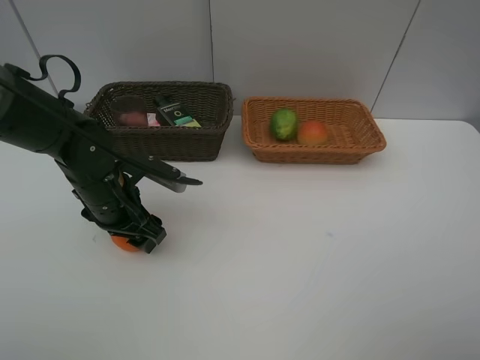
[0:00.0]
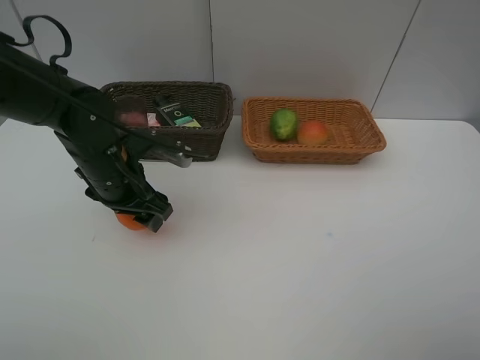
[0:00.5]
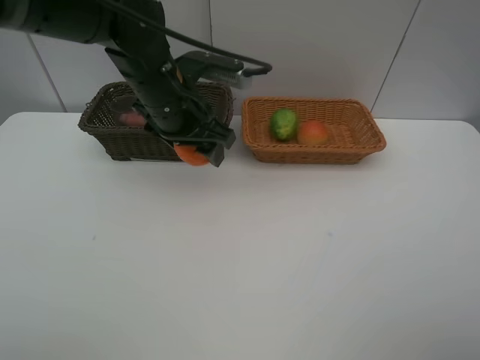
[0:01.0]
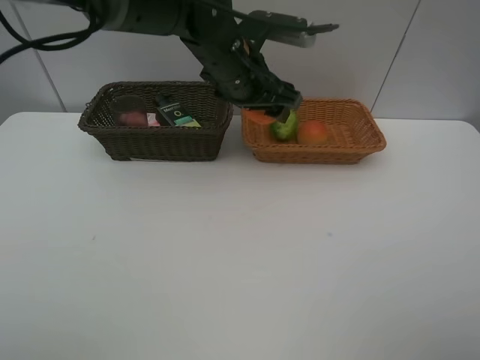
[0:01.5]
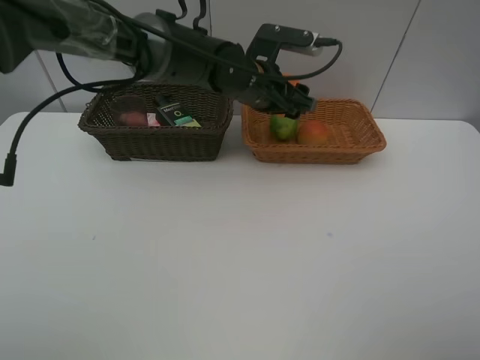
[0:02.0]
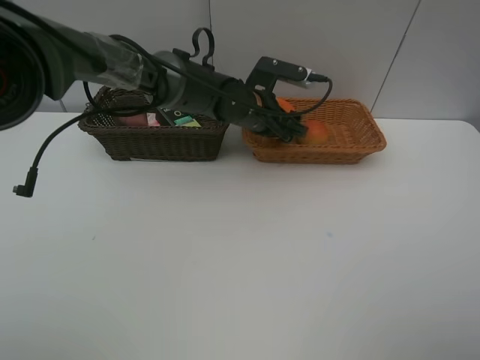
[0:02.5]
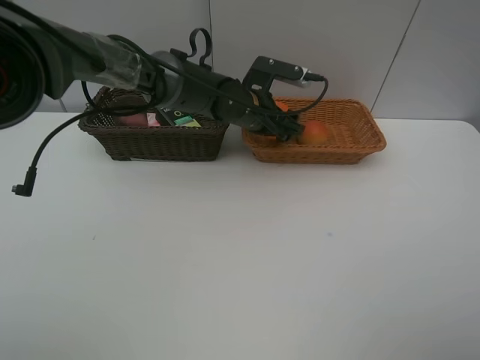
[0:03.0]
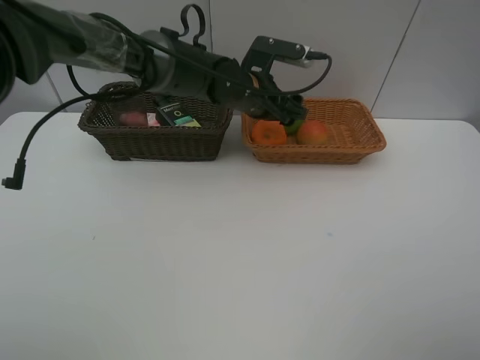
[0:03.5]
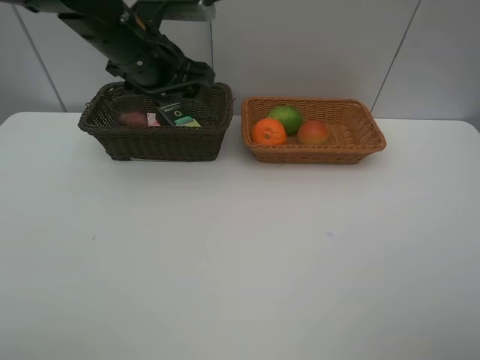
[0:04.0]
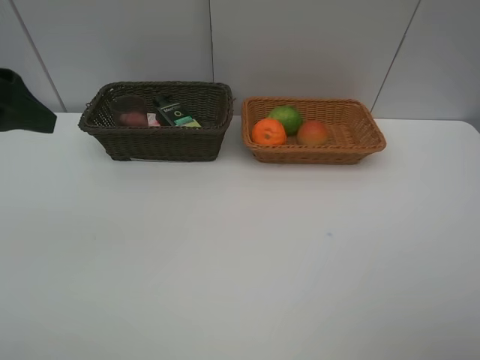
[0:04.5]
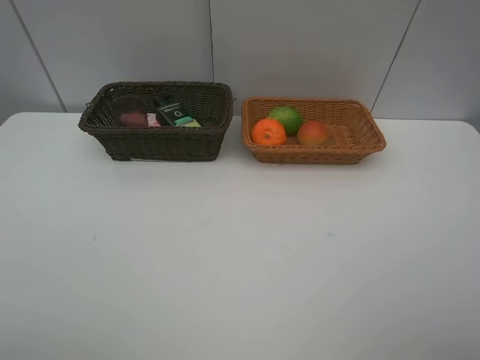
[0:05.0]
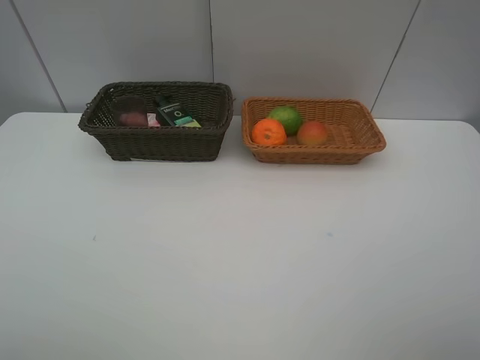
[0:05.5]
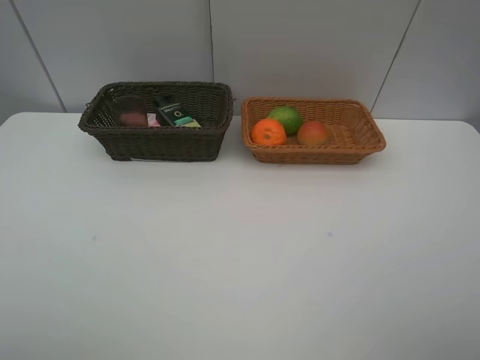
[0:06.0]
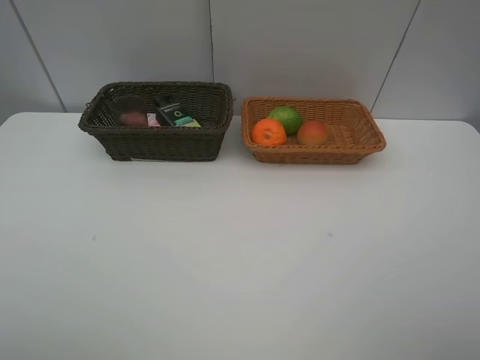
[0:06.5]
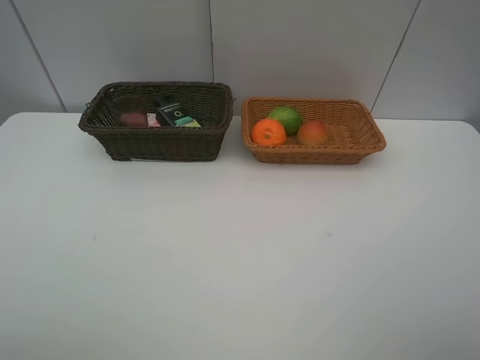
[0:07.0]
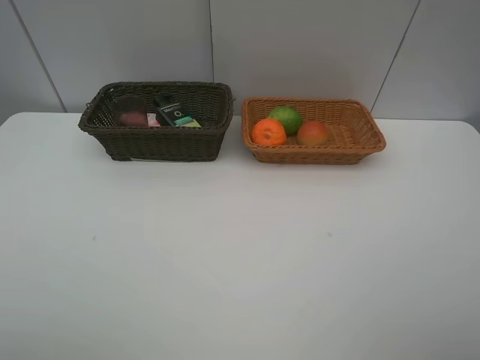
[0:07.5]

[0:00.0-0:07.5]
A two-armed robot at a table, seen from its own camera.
Task of the whole recording: place multiple objects separately in different baskets.
0.0 to 2.0 s: The left gripper moves to the right, forward and upward, some 25 cm.
2.0 to 4.0 s: The left gripper is displaced to the left and upward by some 20 cm.
4.0 to 5.5 s: The left gripper is displaced backward and to the left by about 40 cm.

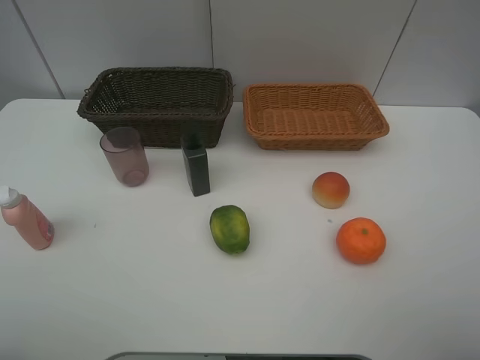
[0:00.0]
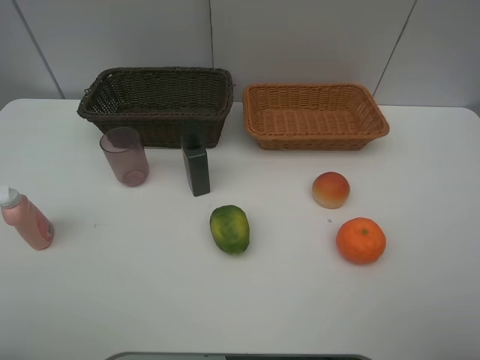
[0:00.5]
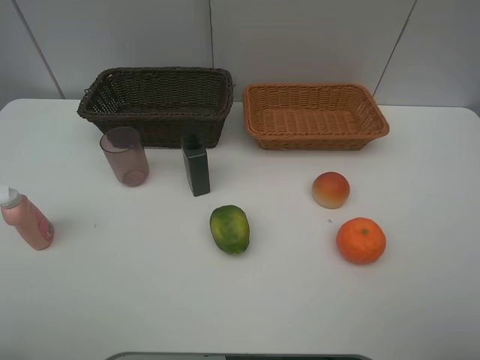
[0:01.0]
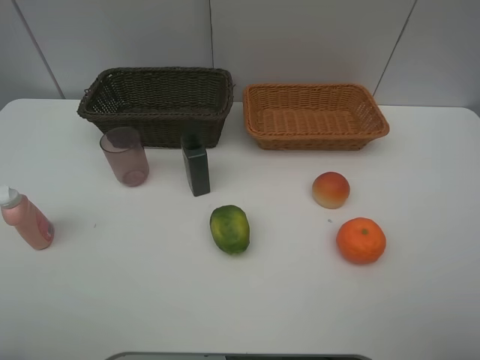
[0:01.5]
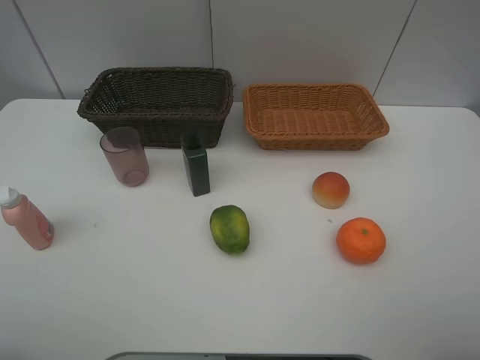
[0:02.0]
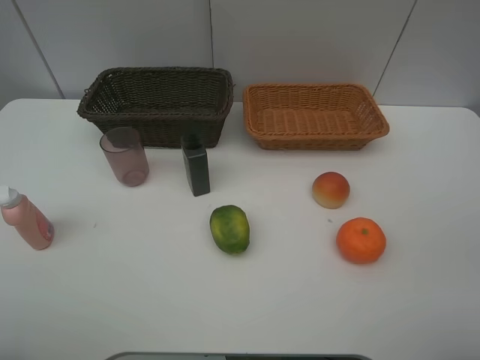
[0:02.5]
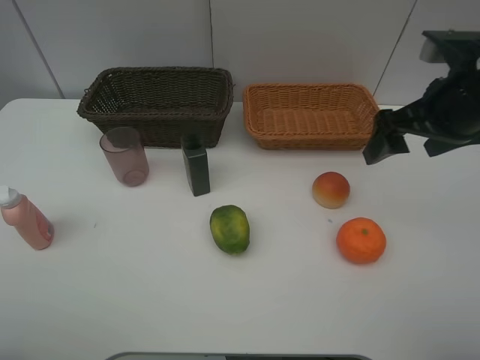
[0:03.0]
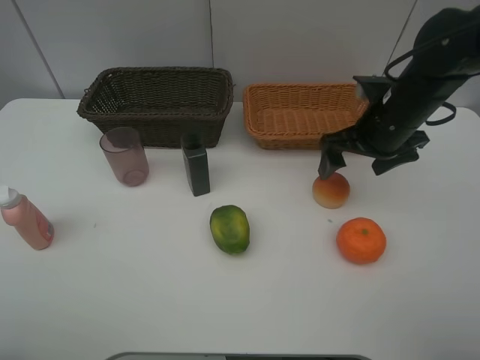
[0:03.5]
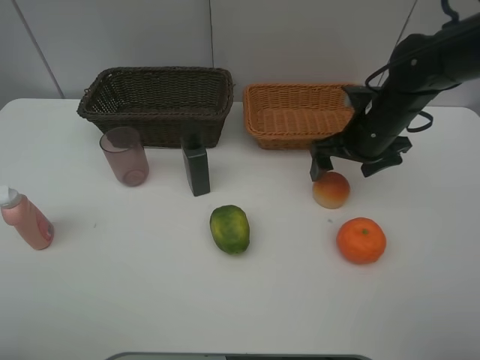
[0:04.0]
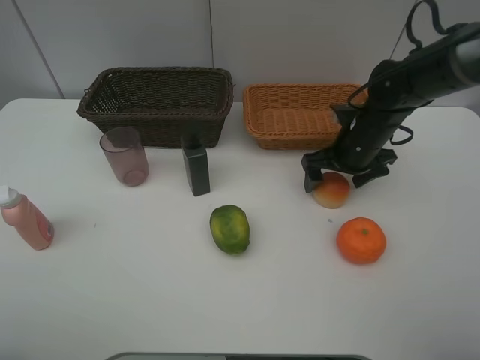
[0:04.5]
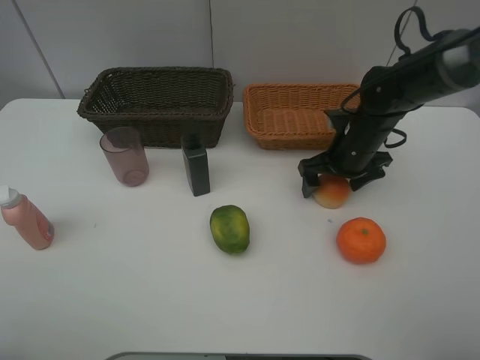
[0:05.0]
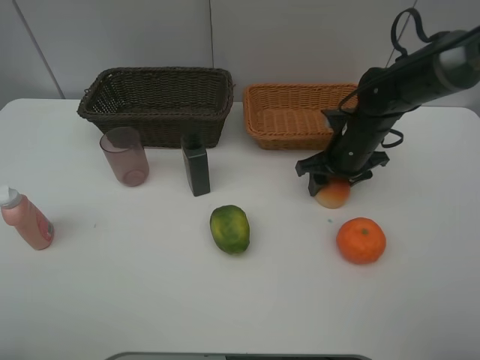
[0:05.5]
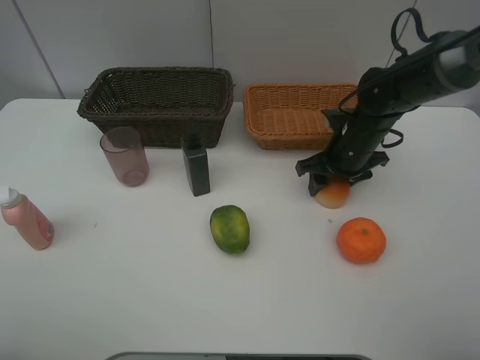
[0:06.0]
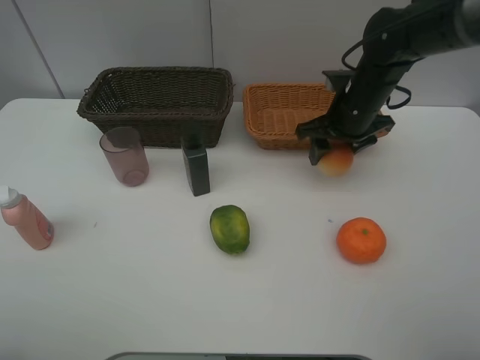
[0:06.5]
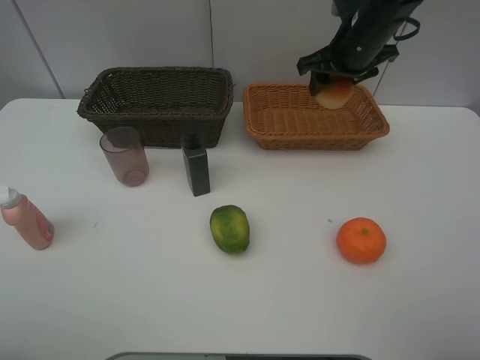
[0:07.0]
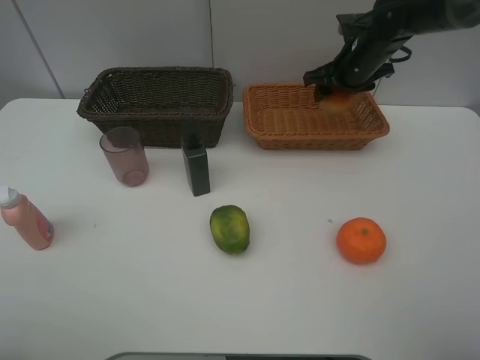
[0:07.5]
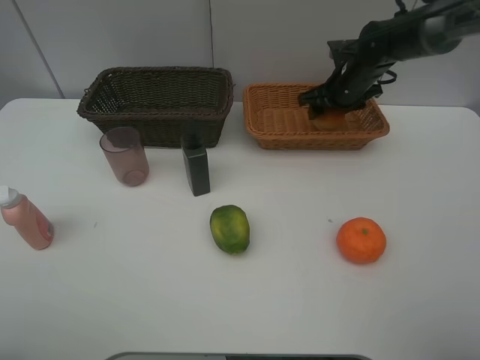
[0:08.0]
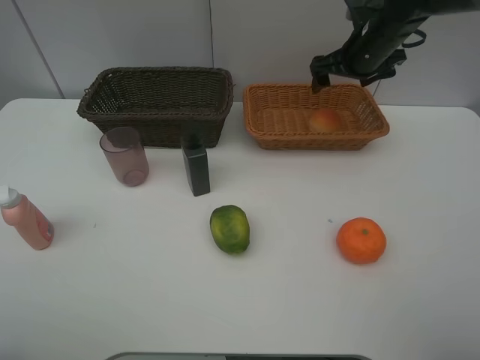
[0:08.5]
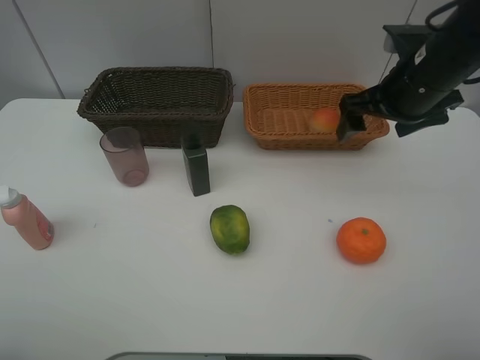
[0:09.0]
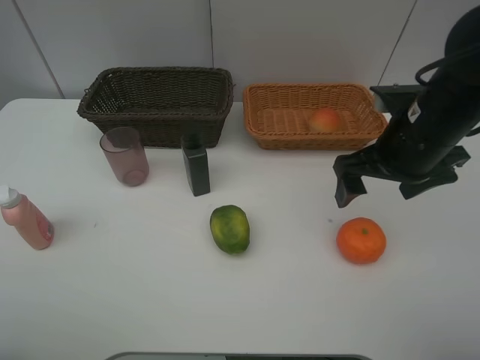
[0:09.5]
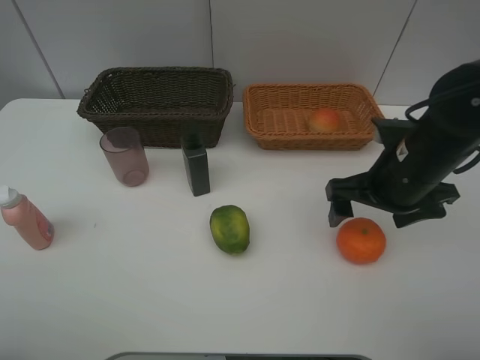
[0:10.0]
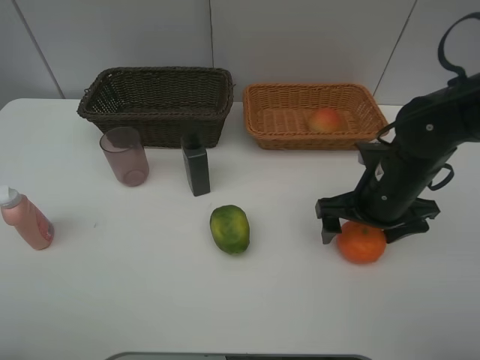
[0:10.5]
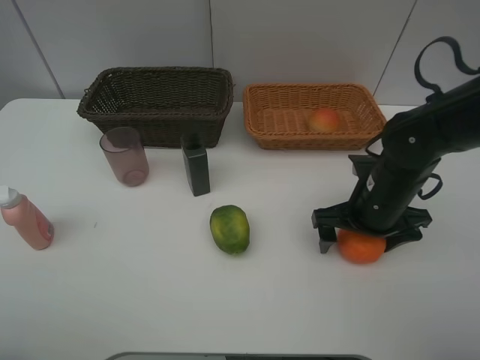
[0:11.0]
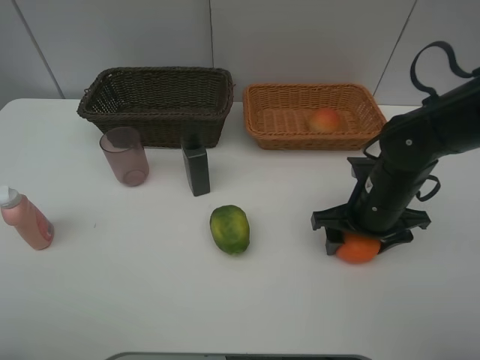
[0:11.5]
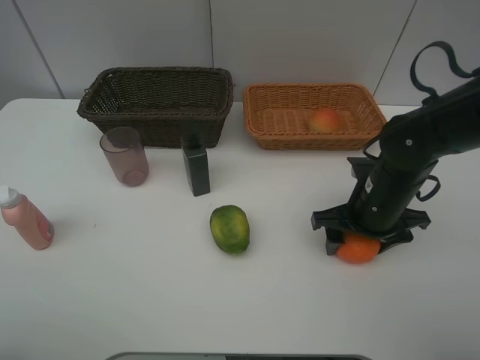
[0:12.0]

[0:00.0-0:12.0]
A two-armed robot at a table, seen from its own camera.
Task of the whole recording: place multiple objects separately in different baskets.
0.0 to 2.0 s: Neither gripper changes place.
2.0 to 4.0 s: The right gripper goes about 35 cm forward.
4.0 to 6.0 s: The right gripper shifts by about 5 cm, and closes its fingers.
6.0 to 8.0 s: The right gripper shifts roughly 10 cm forward, and goes upward and returns, some 15 cm each way.
8.0 to 10.0 s: The right gripper goes roughly 25 cm backward, and opens its fingers.
10.0 to 12.0 s: The right gripper heads downward, covering about 5 cm, and closes.

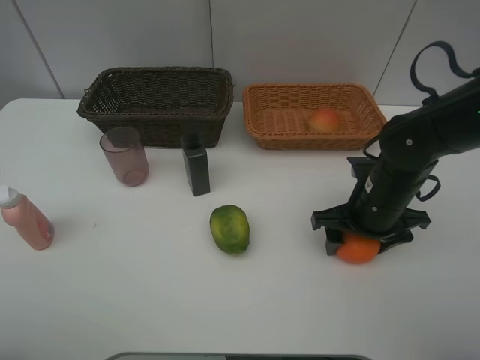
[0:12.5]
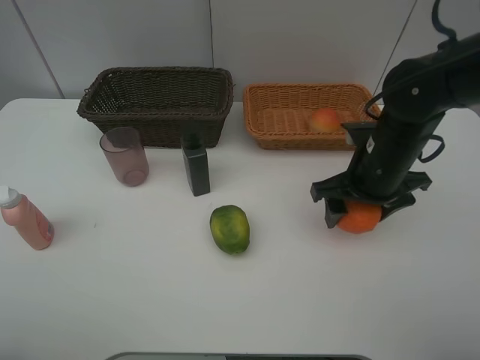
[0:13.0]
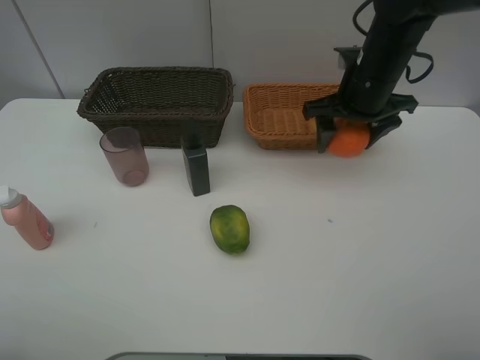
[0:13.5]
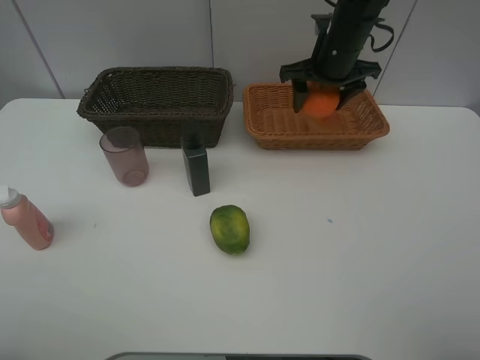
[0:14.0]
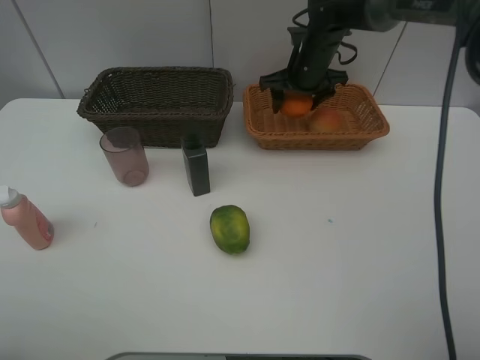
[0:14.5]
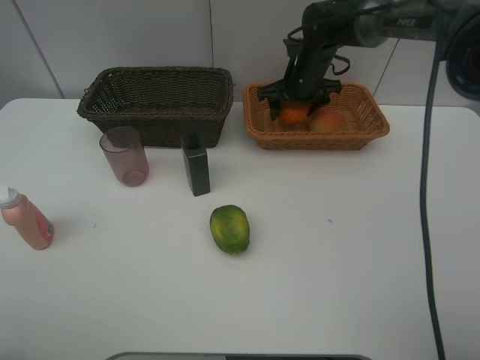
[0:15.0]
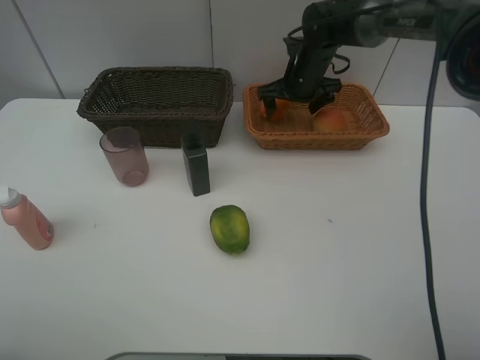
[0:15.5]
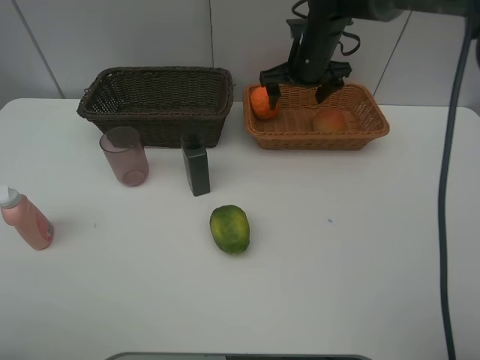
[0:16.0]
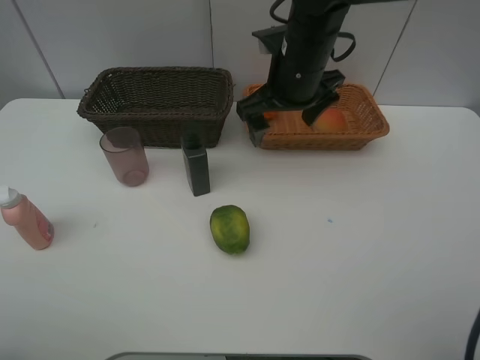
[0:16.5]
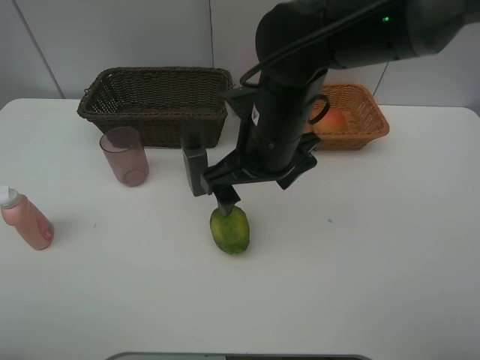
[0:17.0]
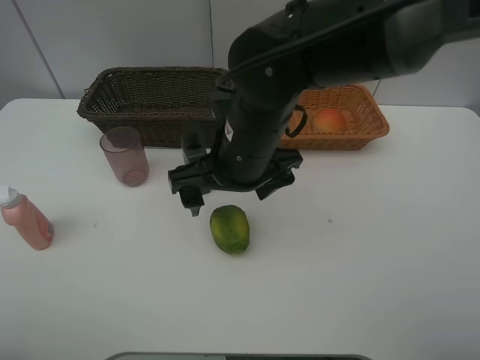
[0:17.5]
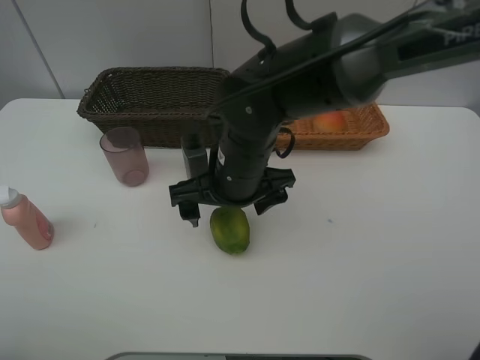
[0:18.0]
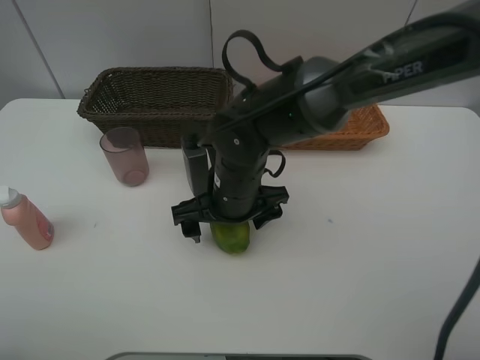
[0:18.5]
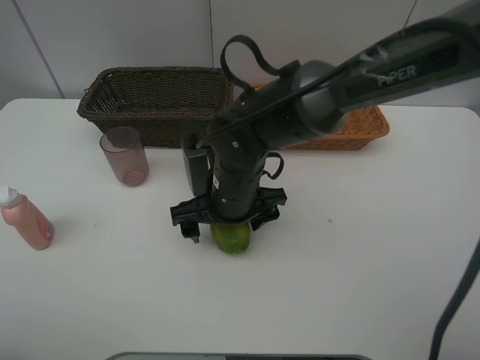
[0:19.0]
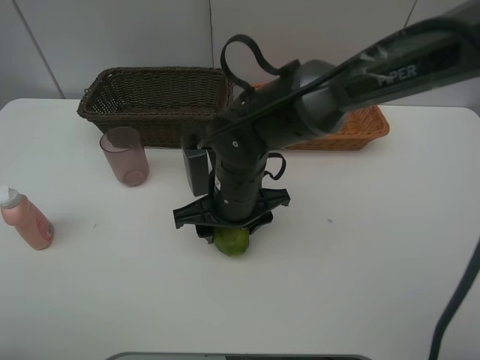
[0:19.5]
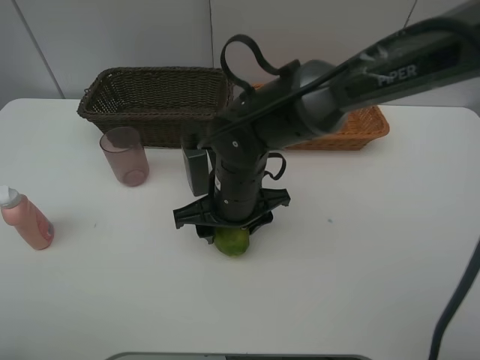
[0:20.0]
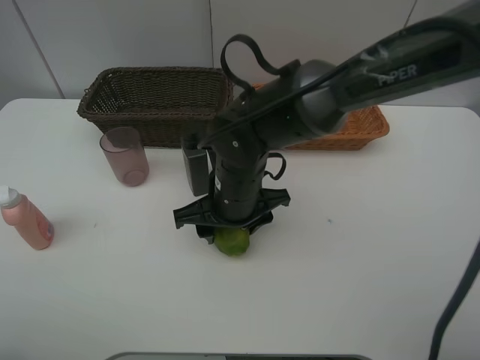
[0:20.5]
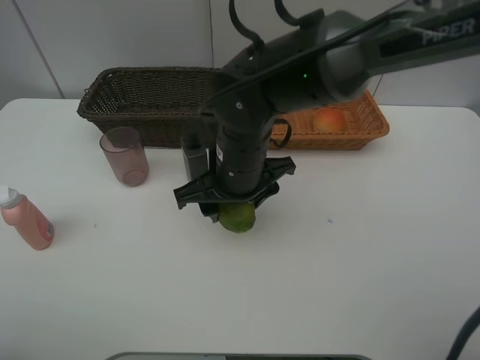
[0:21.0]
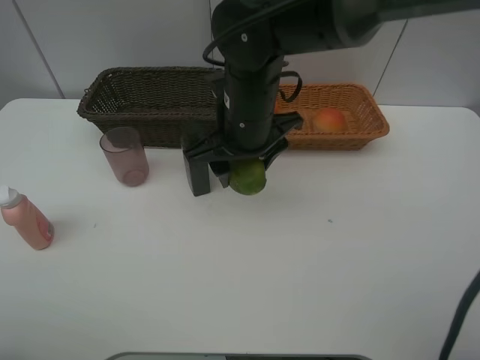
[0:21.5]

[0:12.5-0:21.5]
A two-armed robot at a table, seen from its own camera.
Task of the whole recording: place multiple objects separately in different baskets.
12.5 to 14.5 s: The right gripper is displaced forward by some 25 cm.
14.5 to 17.0 s: The right gripper moves backward and to the left, about 25 cm, and opens.
17.0 to 19.5 s: The right gripper moves downward, some 10 cm, and closes its fingers.
19.5 to 21.5 s: The right gripper is displaced upward by approximately 10 cm.
